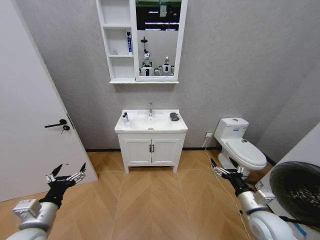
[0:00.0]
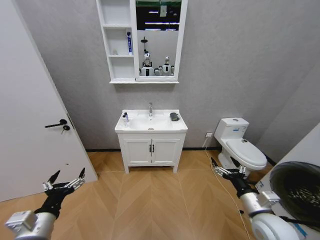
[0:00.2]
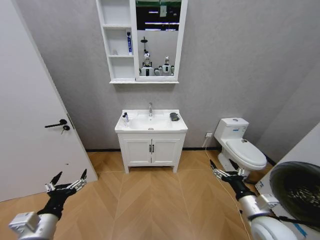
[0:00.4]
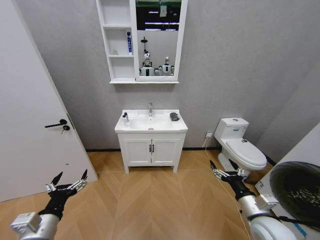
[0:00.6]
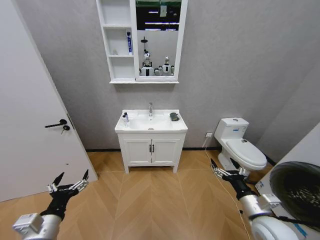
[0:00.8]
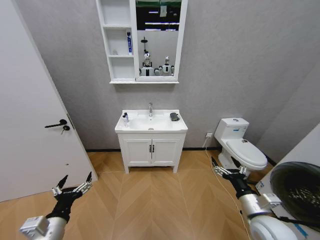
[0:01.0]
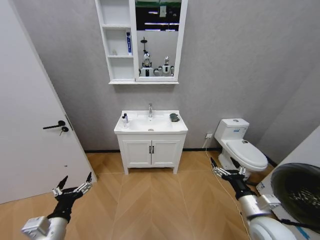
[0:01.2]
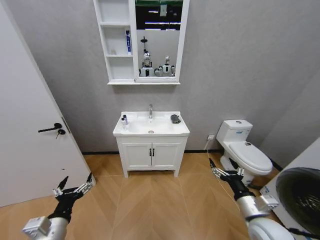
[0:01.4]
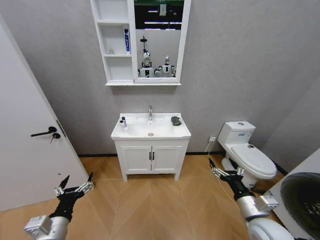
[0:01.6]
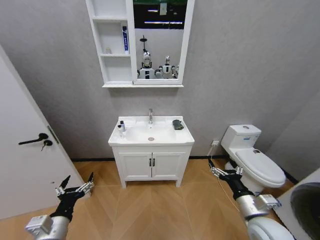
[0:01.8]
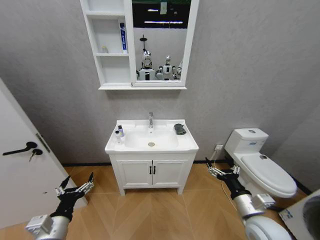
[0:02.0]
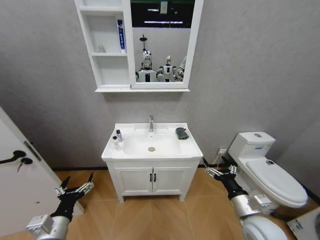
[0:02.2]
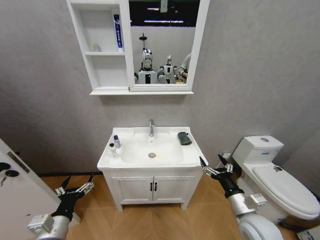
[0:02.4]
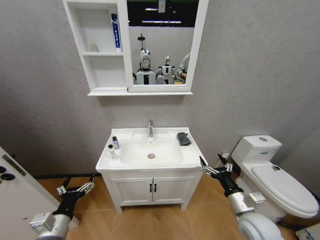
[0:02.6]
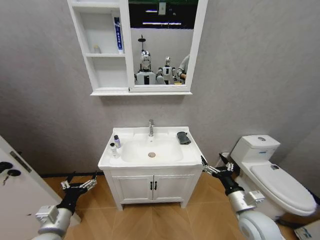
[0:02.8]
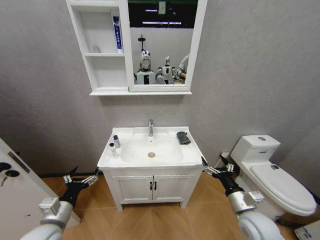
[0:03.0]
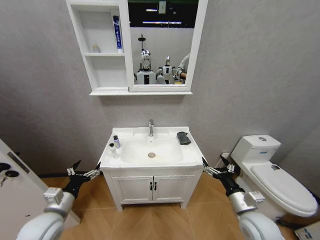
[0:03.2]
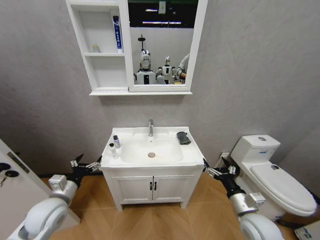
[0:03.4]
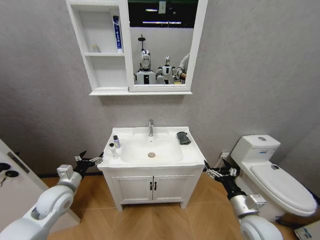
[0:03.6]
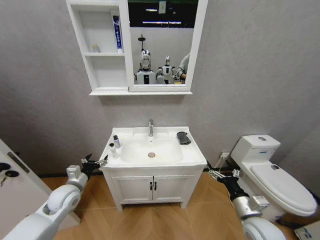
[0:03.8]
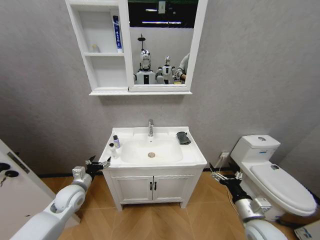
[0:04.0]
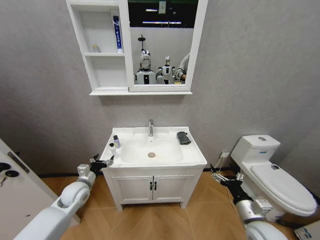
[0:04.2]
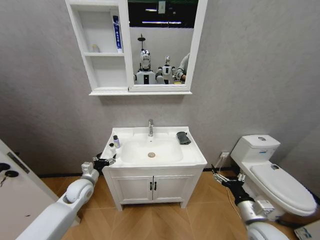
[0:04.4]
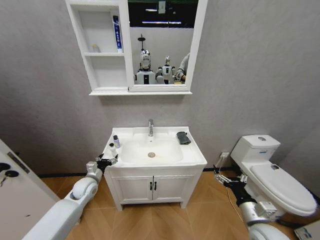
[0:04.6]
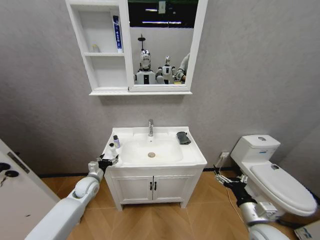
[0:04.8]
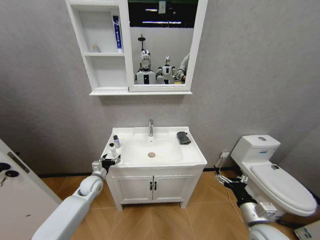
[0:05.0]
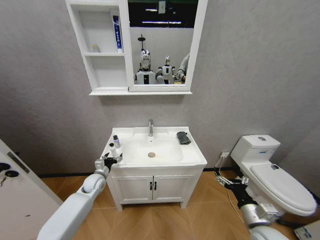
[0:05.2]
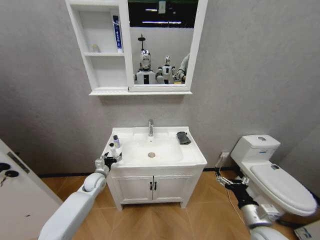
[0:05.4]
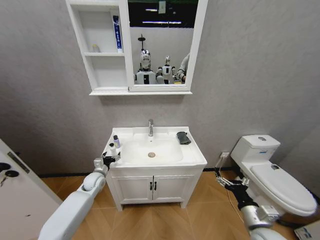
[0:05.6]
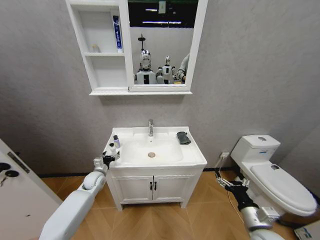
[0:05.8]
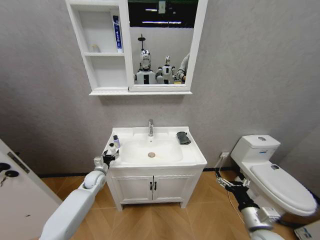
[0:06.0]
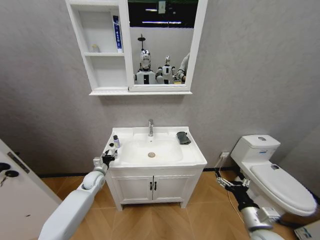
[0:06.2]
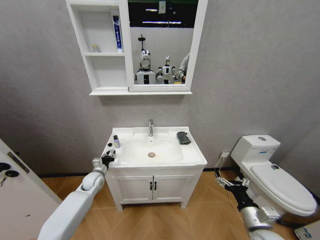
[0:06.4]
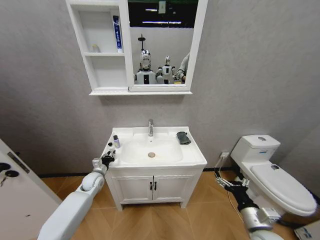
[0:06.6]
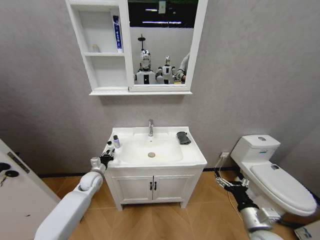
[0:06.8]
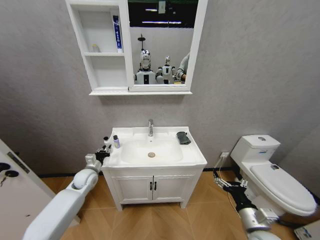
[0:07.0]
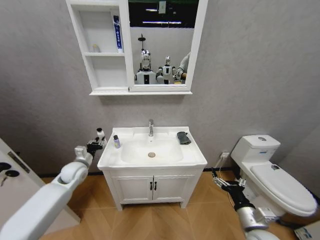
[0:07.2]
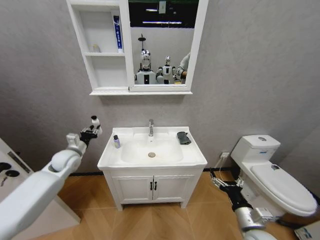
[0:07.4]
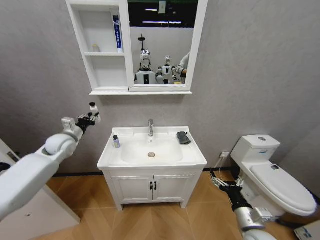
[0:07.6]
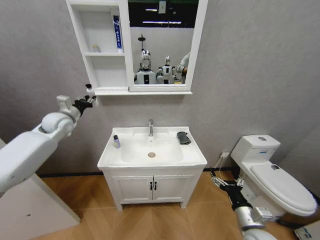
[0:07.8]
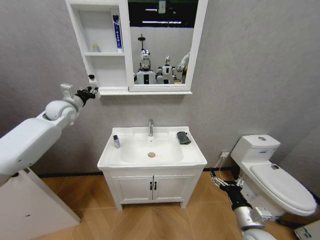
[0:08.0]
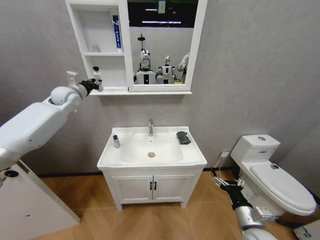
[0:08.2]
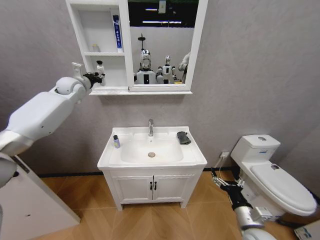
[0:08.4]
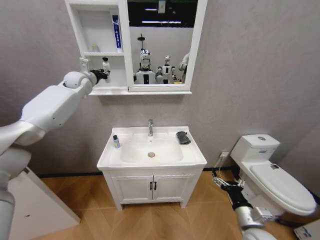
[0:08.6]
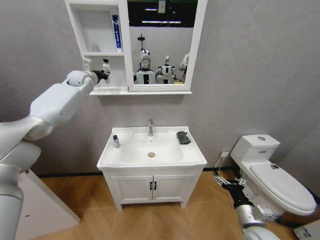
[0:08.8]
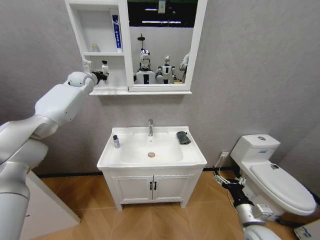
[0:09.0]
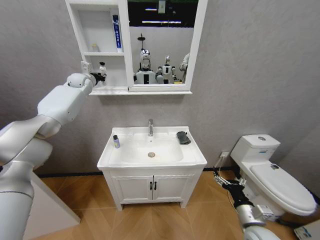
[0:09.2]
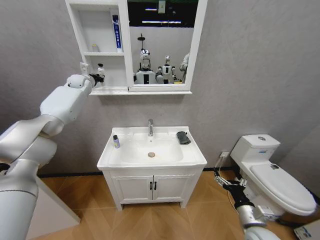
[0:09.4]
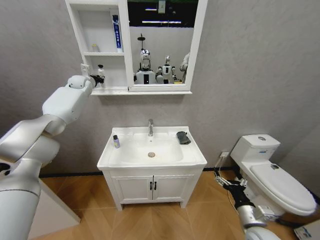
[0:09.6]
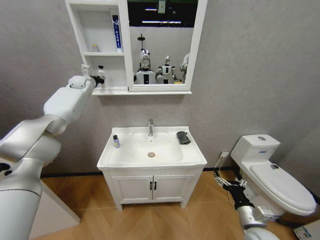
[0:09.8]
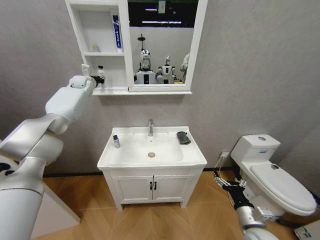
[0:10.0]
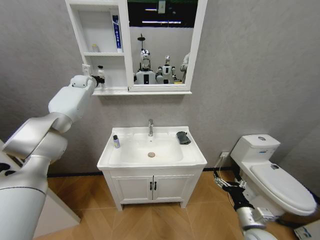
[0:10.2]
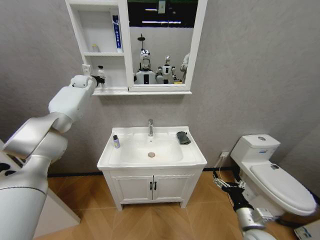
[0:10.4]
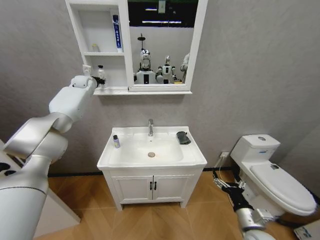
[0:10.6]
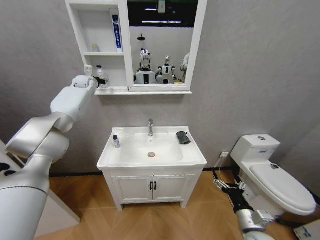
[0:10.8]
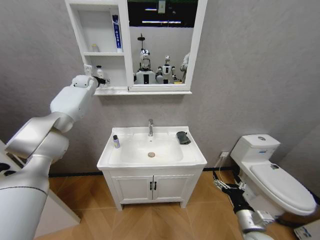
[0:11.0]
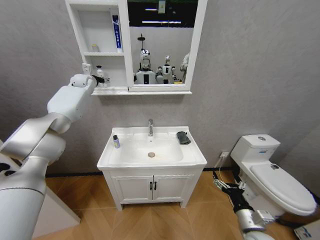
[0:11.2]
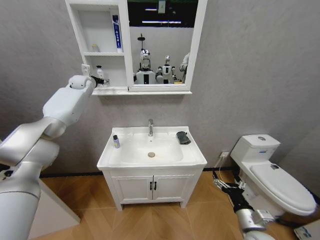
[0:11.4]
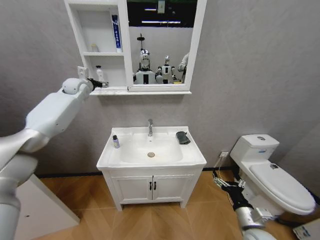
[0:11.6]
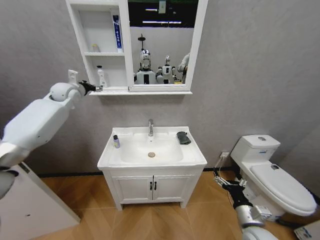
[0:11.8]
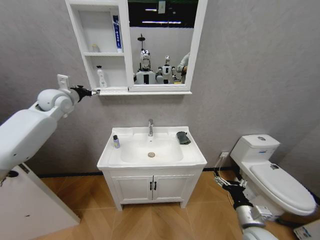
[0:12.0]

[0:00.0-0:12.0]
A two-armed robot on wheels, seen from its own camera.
Task of the whole recording: Move facial cleanser and shampoo from washbasin to cabinet, then wipe washbasin with towel.
0:01.6 to 0:03.0: The left gripper shifts by roughly 5 cm.
0:03.0 to 0:04.4: The left gripper is displaced forward by roughly 15 cm.
0:04.4 to 0:06.0: The left gripper goes some 5 cm forward.
0:06.0 to 0:07.6: The left gripper is displaced upward by some 20 cm, and closes its fingers.
0:07.6 to 0:09.0: The left gripper goes roughly 30 cm forward and upward.
0:09.0 to 0:10.4: The grippers stay close to where they were, moving slightly.
0:10.4 to 0:12.0: The left gripper travels backward by approximately 20 cm, and opens up.

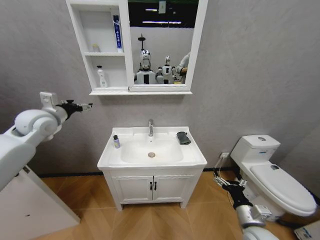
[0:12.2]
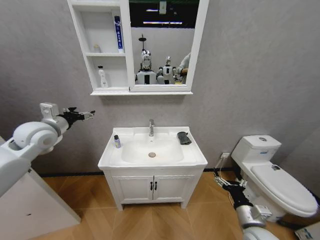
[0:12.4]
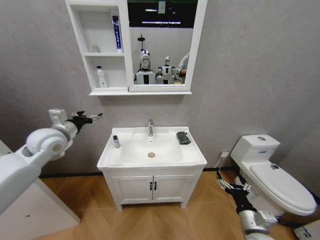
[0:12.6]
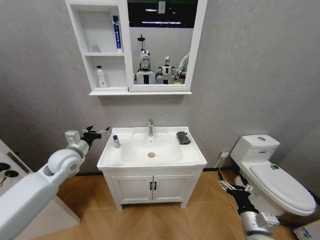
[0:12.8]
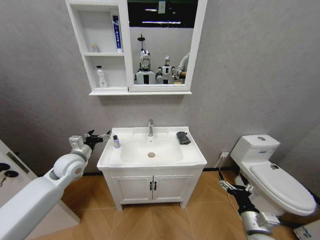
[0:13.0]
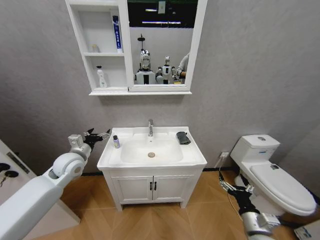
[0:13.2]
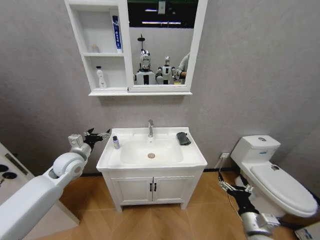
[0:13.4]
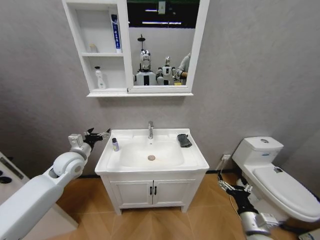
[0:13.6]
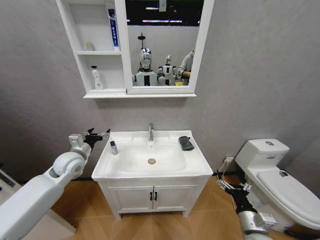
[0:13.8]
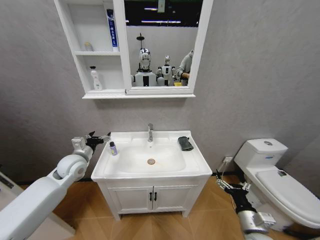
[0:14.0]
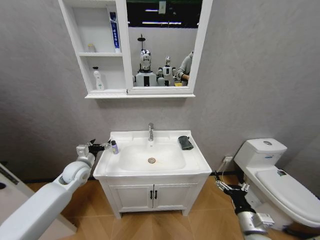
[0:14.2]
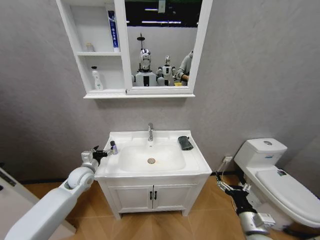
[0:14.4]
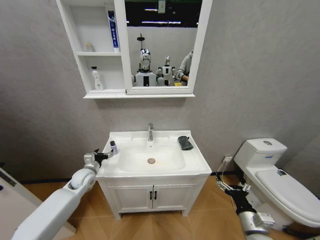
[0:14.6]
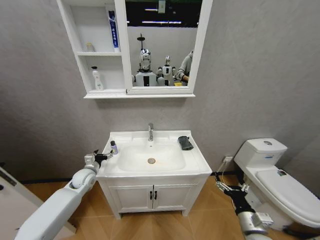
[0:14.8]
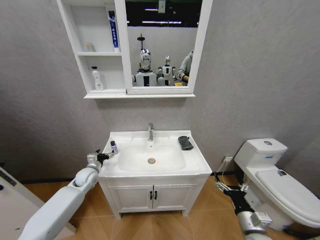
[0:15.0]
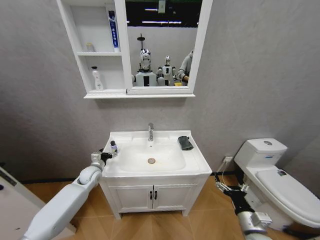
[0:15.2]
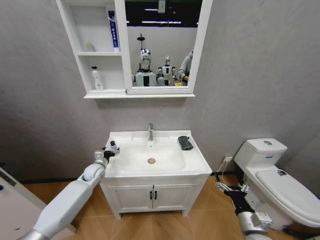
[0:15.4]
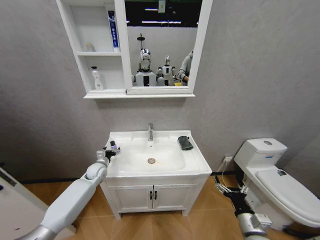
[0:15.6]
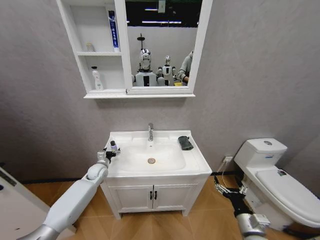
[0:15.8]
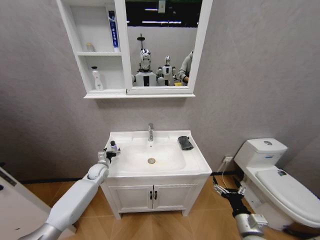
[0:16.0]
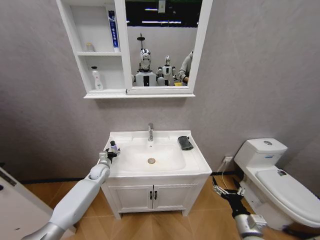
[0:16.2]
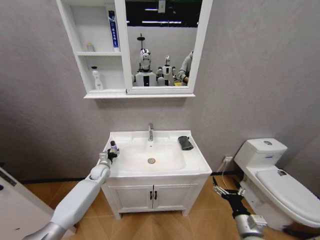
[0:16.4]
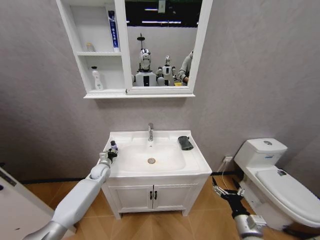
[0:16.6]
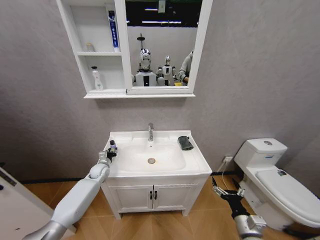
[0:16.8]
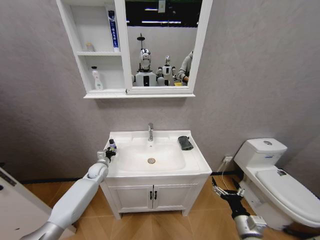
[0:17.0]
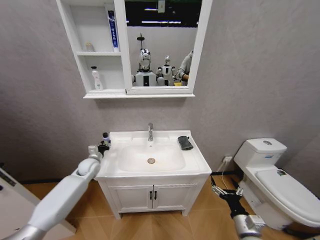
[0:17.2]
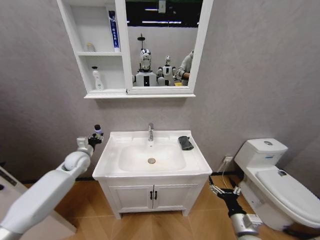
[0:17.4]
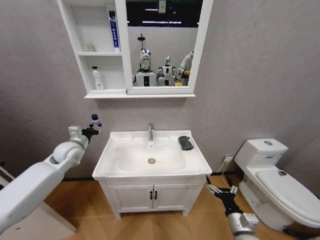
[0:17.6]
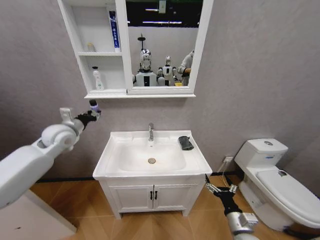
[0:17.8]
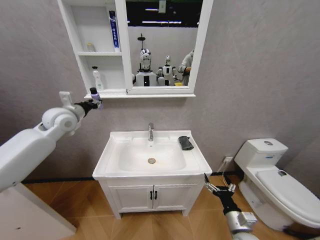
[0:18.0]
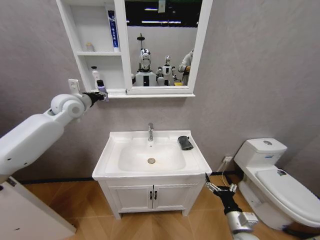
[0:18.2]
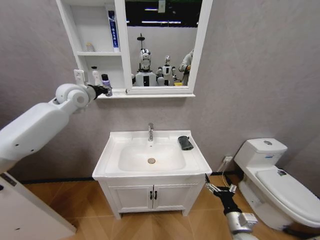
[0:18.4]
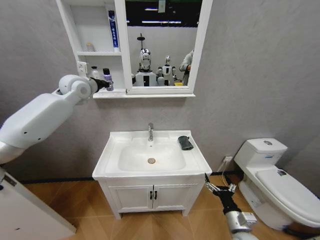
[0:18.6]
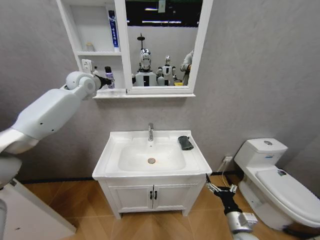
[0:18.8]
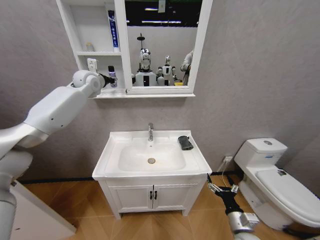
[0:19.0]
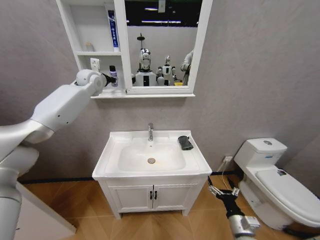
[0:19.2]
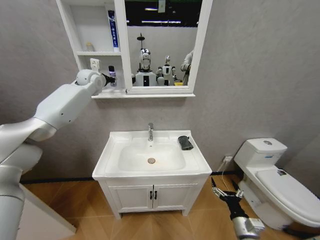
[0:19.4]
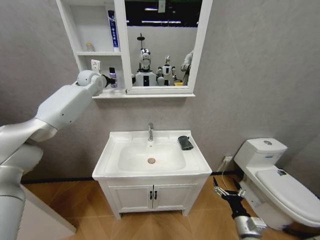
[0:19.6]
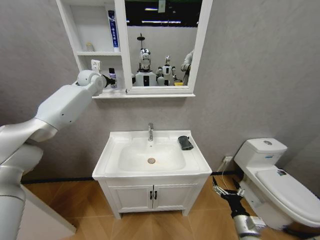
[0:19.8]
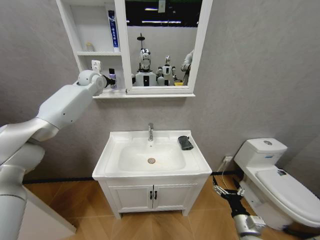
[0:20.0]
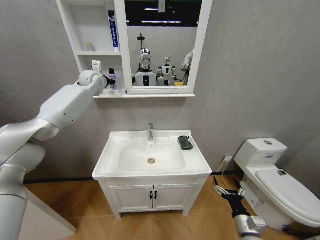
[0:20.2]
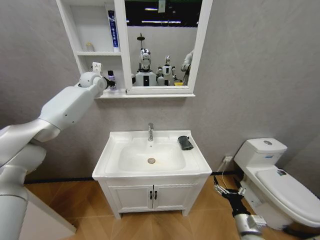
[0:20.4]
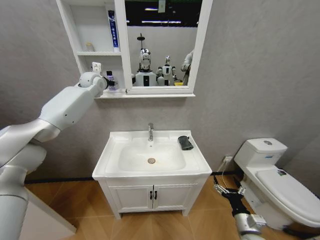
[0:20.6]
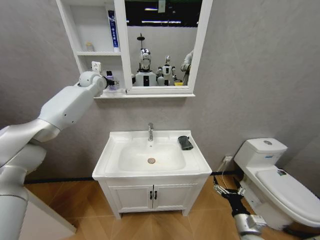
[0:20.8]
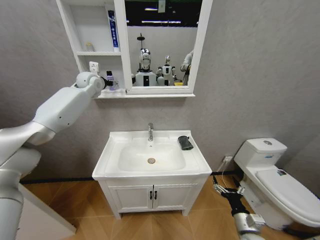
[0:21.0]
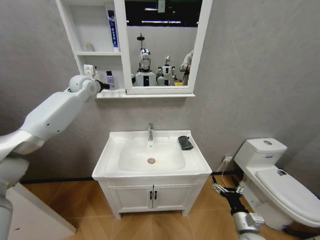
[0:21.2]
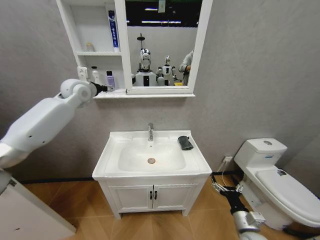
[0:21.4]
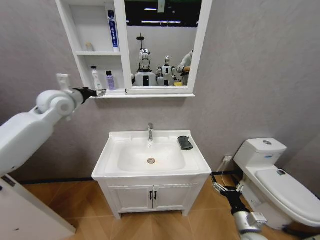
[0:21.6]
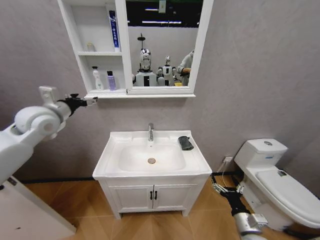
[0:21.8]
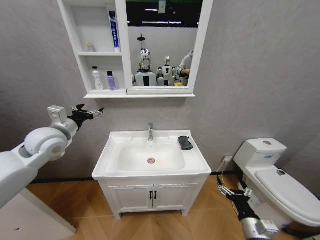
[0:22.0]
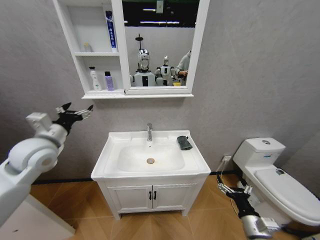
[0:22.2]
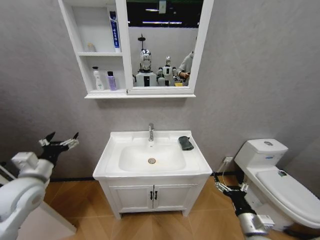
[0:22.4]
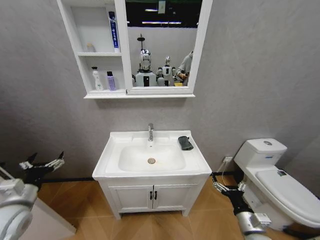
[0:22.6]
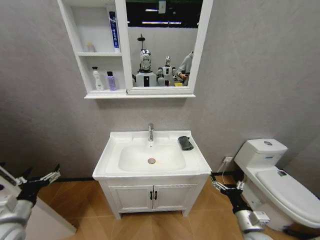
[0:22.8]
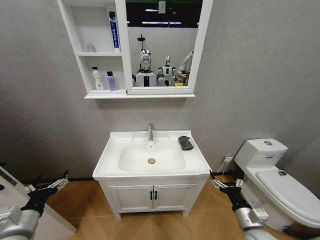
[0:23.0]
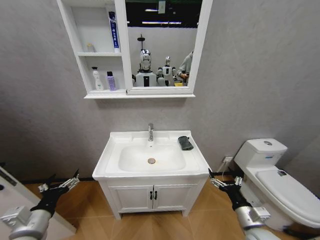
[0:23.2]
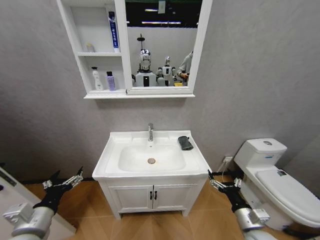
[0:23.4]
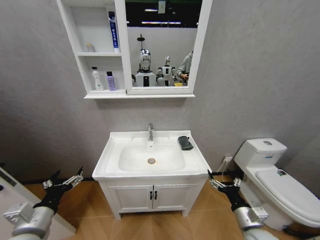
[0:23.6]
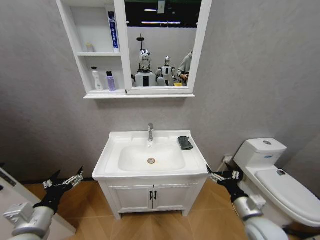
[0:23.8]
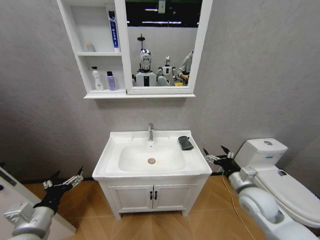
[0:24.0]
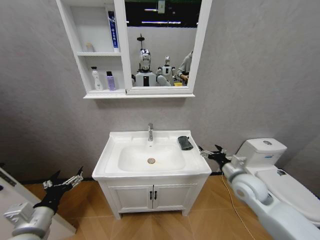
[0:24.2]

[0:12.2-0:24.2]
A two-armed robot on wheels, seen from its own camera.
Task of the whole recording: Move facial cleanser and shampoo from washbasin to cabinet, then wipe washbasin with towel.
0:12.2 to 0:13.8: The left gripper heads downward and to the right, covering roughly 20 cm.
0:13.8 to 0:15.2: The left gripper goes about 15 cm downward.
0:15.2 to 0:16.6: The left gripper moves roughly 5 cm, and closes its fingers.
0:16.6 to 0:18.2: The left gripper shifts approximately 40 cm upward.
0:18.2 to 0:19.8: The left gripper heads forward, covering roughly 15 cm.
0:19.8 to 0:21.2: The left gripper opens.
0:21.2 to 0:22.6: The left gripper is displaced backward and downward by about 50 cm.
0:22.6 to 0:24.2: The right gripper is displaced forward and upward by approximately 20 cm. Meanwhile the left gripper heads to the right and backward, covering some 10 cm.
